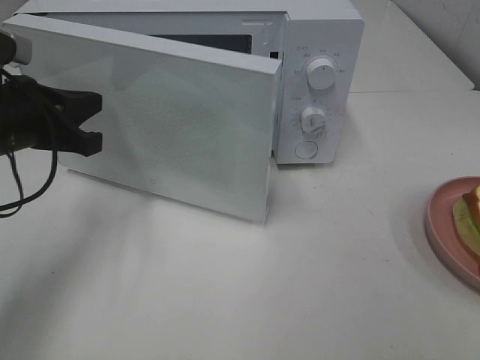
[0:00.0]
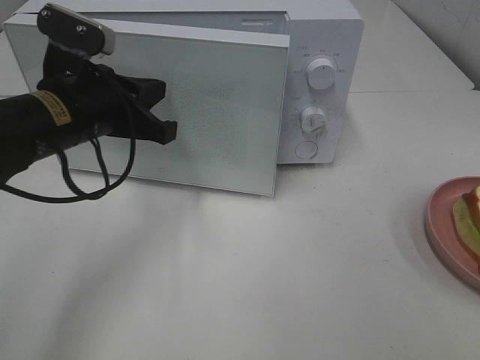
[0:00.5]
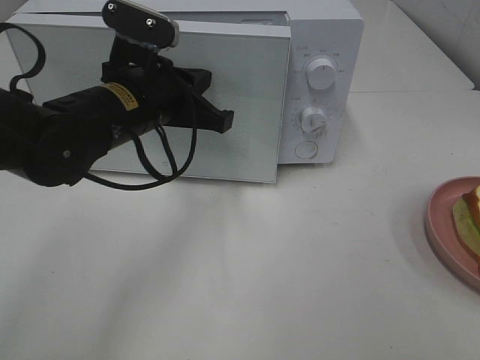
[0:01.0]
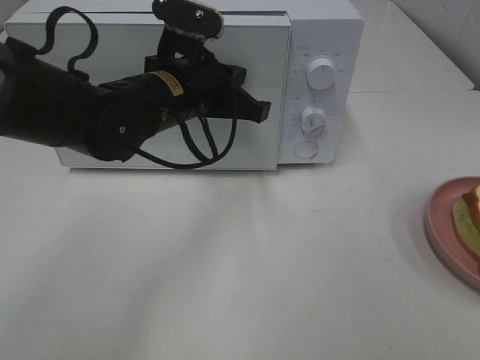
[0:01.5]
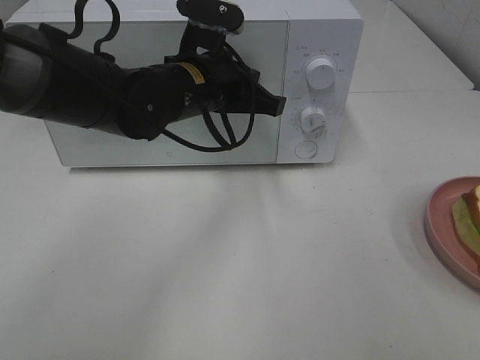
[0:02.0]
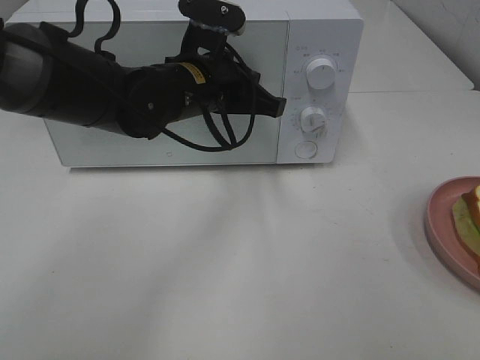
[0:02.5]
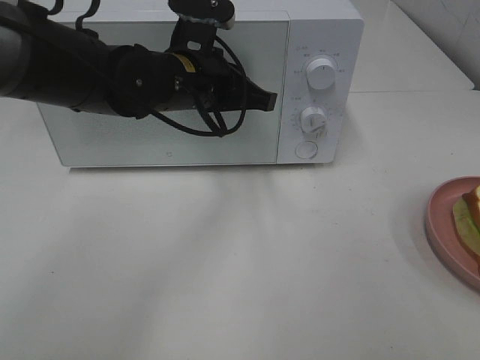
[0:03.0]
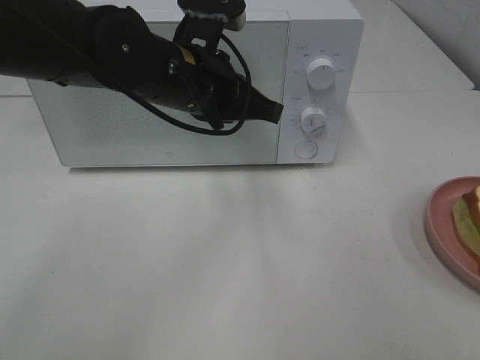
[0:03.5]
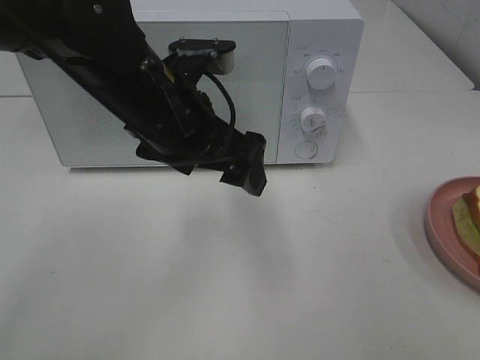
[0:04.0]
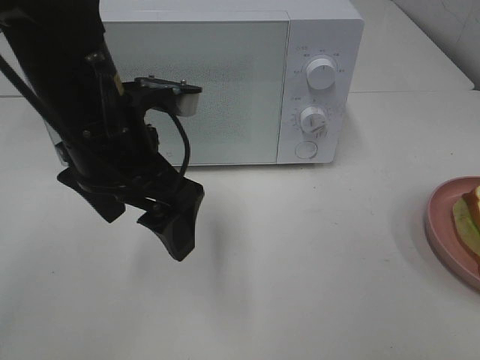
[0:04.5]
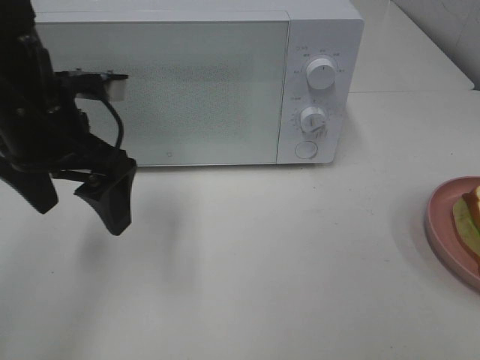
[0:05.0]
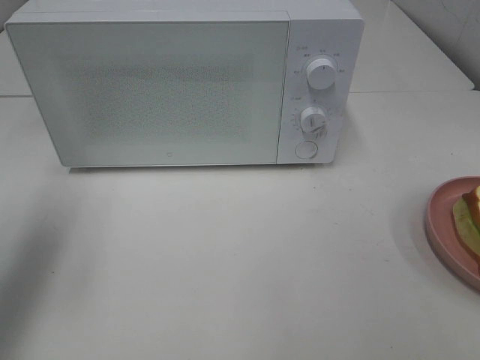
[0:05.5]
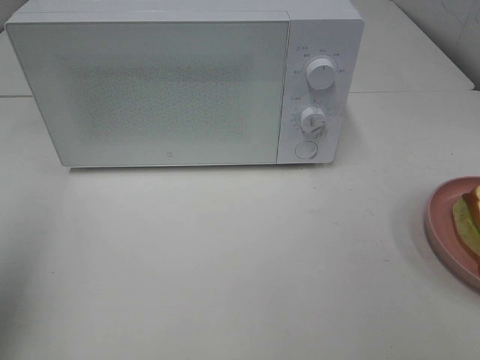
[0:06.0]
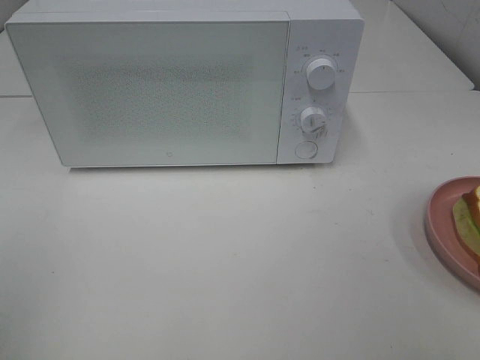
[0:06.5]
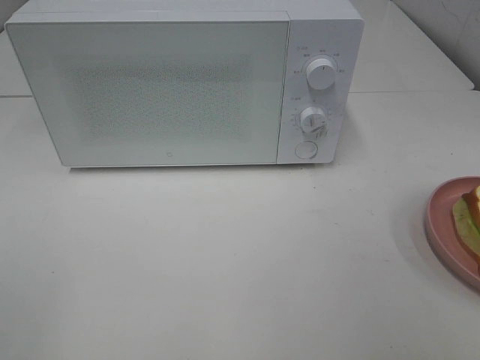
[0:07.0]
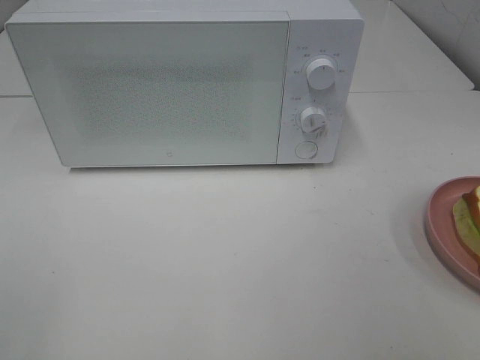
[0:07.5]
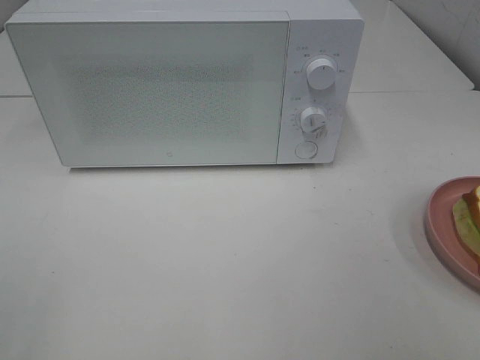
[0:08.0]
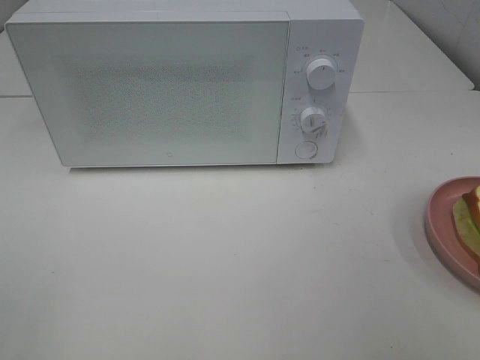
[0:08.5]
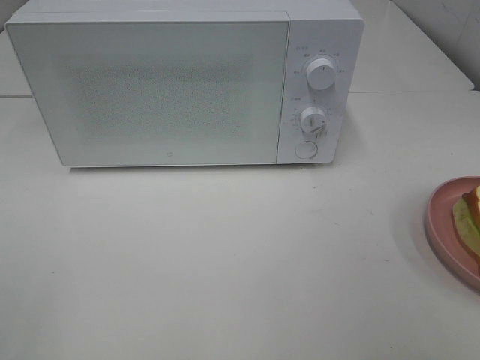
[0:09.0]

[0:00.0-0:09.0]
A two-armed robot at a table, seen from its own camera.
Task of the whole recording: Heat Sandwich.
Step, 0:00.0 to 0:02.5: Left hand: close the microwave door.
0:00.0 to 0:02.0: The left gripper moves to the right, roughly 20 cm.
0:02.0 to 0:04.5: The left gripper heads backward and to the left, covering roughly 10 cm, and opens up.
0:04.5 to 0:07.0: The left gripper is displaced backward and to the left by about 35 cm.

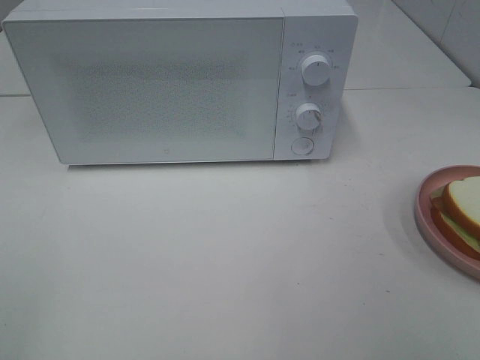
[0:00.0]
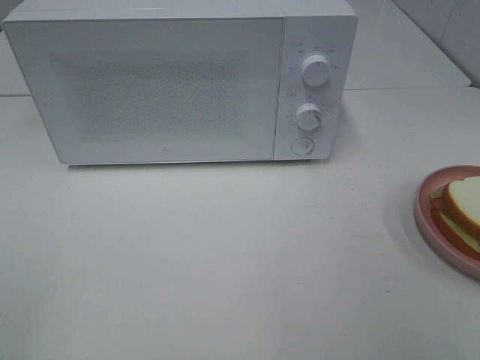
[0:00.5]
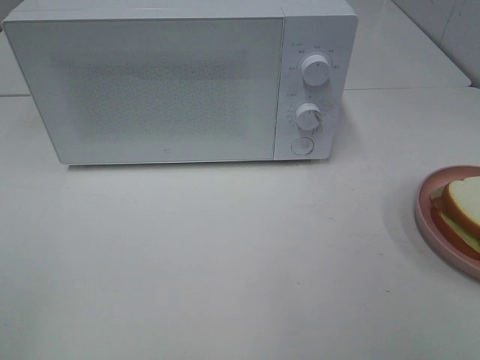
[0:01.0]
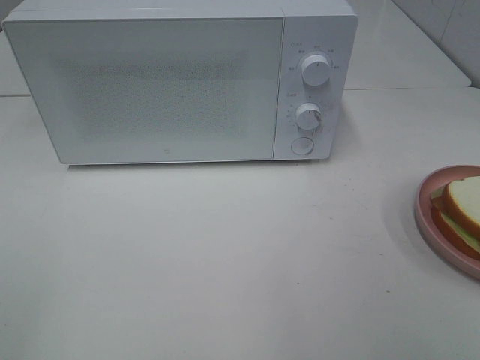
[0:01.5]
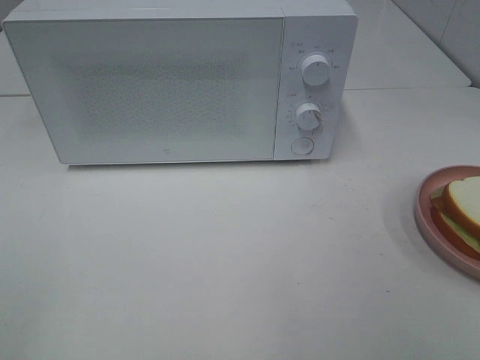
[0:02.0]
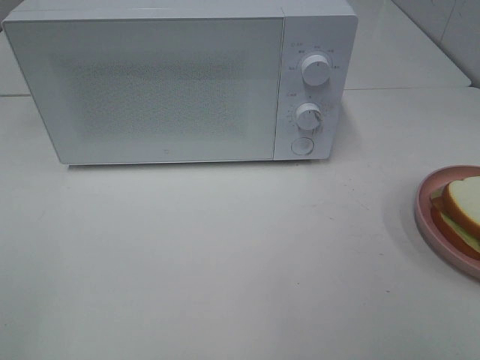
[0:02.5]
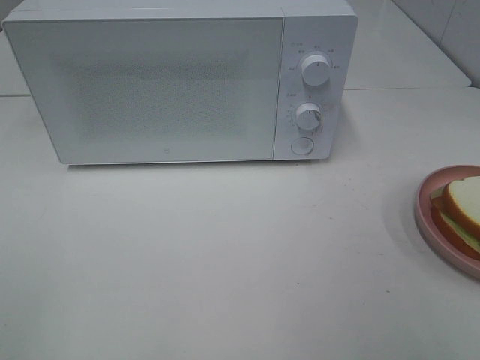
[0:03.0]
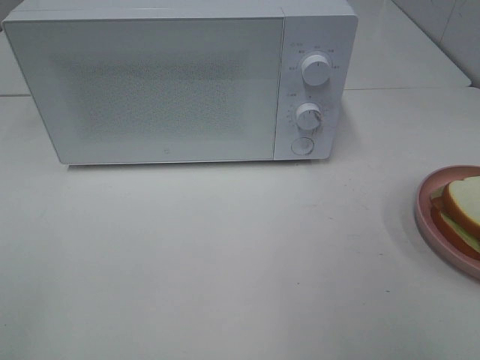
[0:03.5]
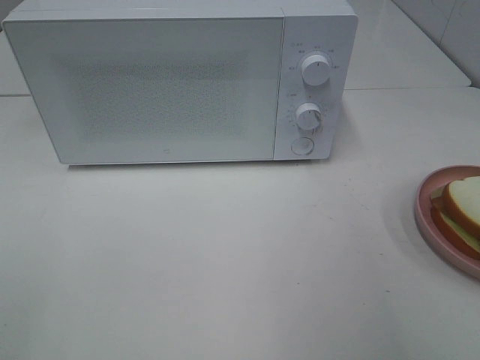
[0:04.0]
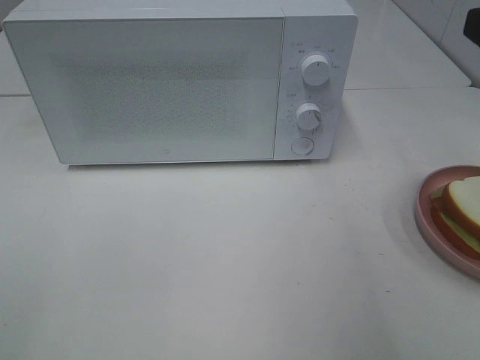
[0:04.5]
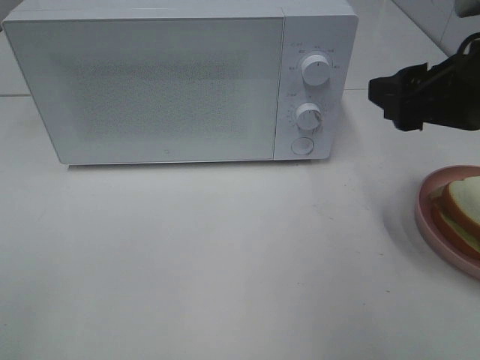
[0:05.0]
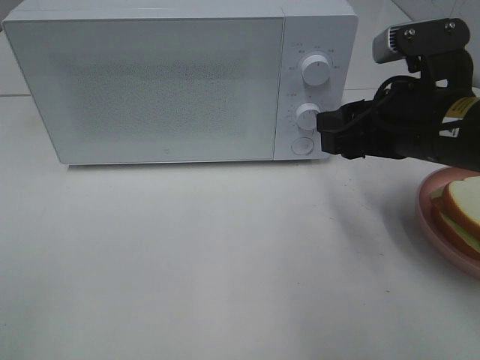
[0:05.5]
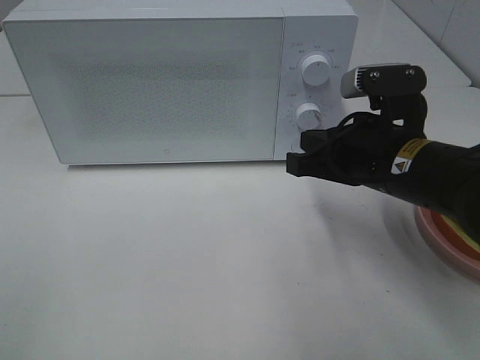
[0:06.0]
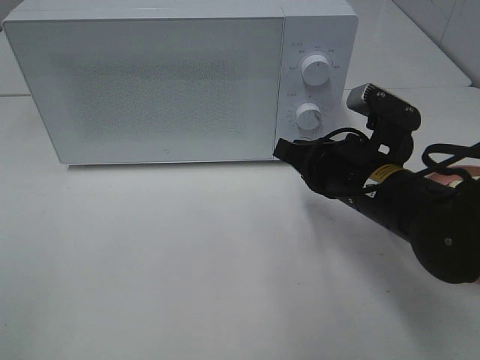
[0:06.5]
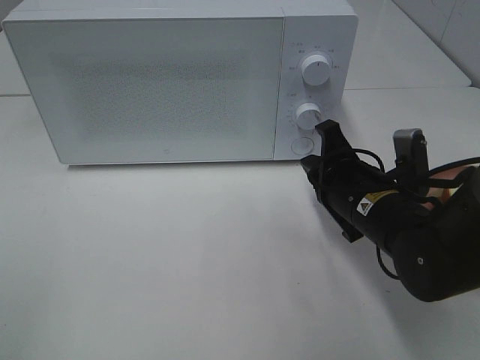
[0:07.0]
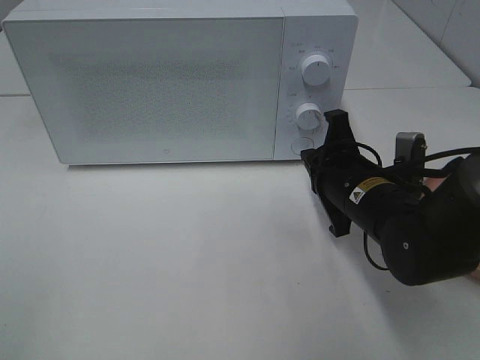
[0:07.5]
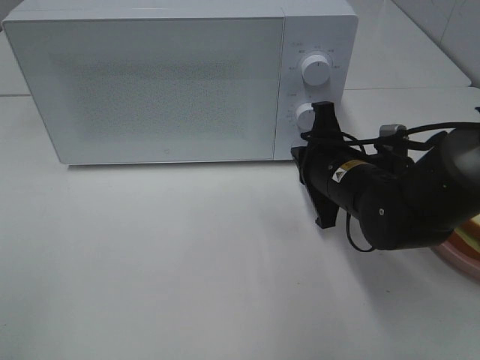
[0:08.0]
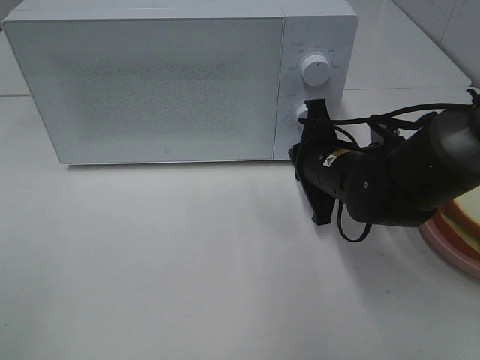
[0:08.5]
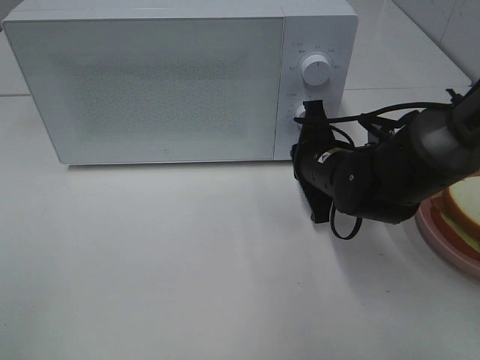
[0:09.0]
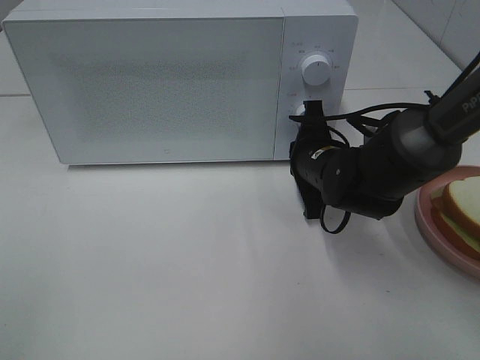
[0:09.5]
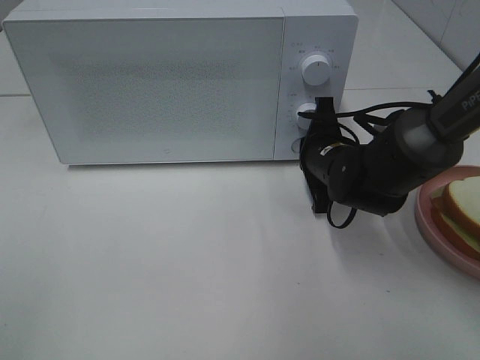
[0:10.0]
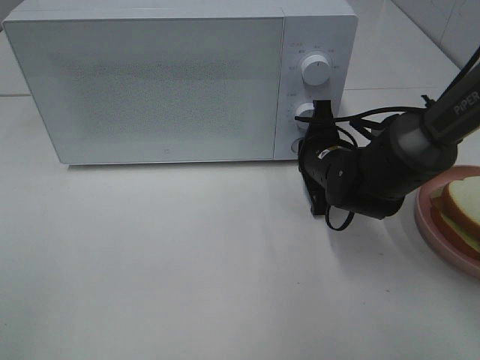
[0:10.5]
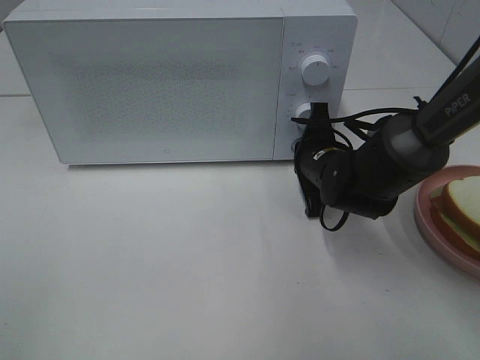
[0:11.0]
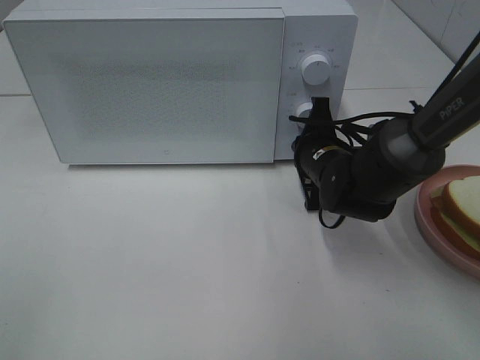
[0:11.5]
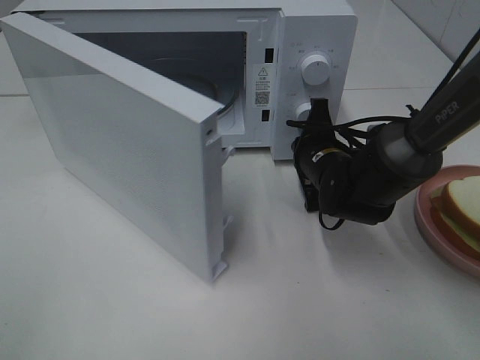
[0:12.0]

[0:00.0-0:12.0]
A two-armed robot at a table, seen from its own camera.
Task of the whole recording: Heat Sandwich.
0:00.0 to 0:02.0: The two grippers keep their place.
0:04.0 to 0:06.0: The right gripper goes roughly 25 cm downward, forward and to the left, and closes.
0:06.0 to 0:08.0: The right gripper shifts approximately 5 cm downward.
0:08.0 to 0:10.0: The right gripper goes approximately 5 cm forward.

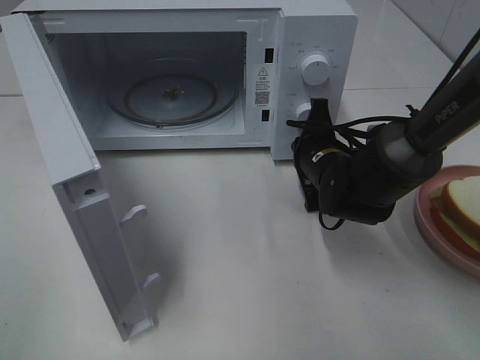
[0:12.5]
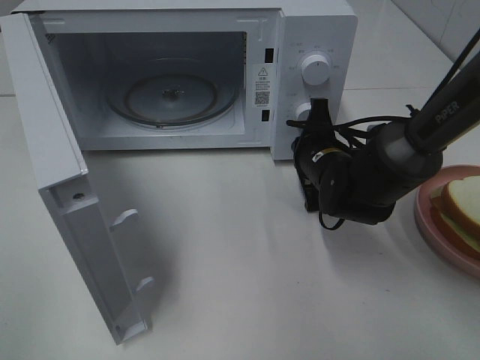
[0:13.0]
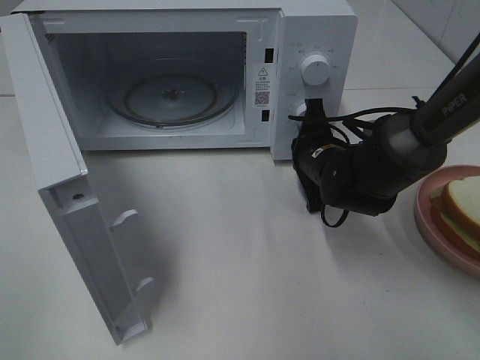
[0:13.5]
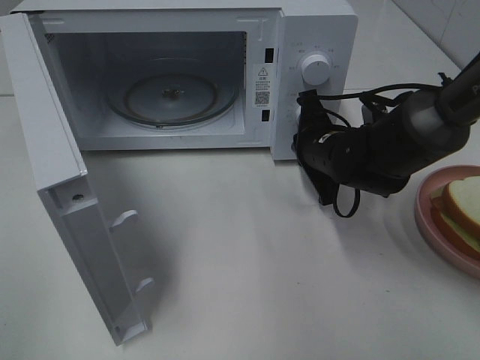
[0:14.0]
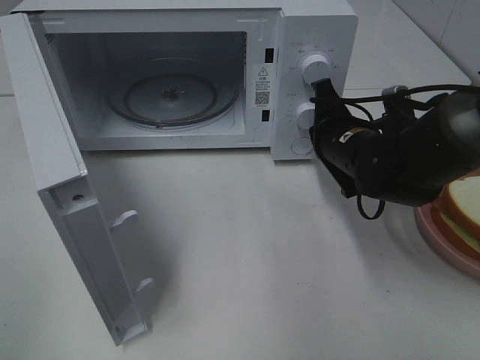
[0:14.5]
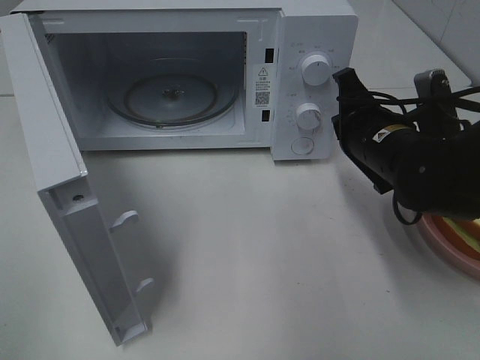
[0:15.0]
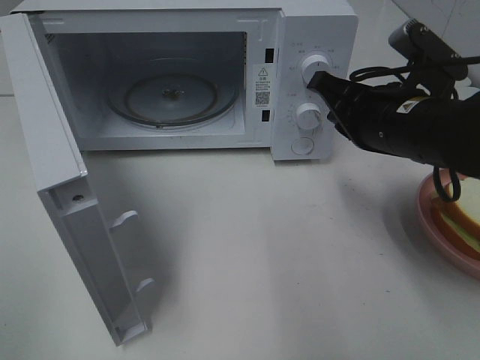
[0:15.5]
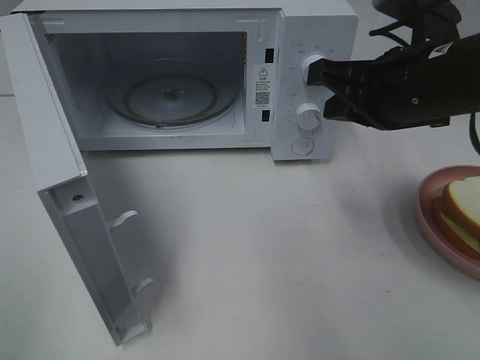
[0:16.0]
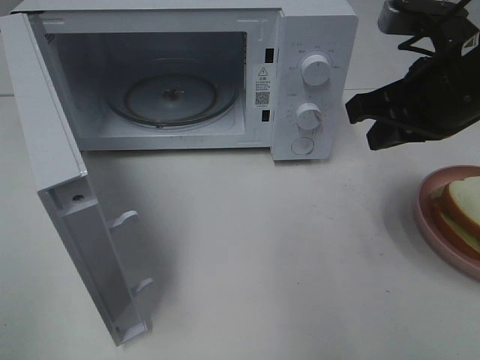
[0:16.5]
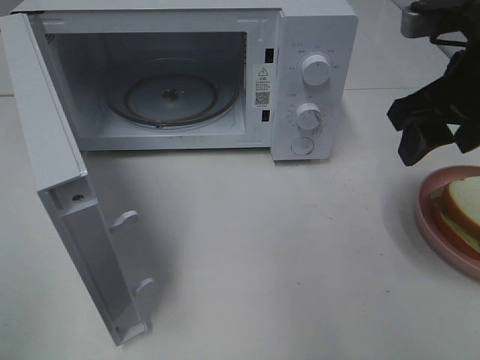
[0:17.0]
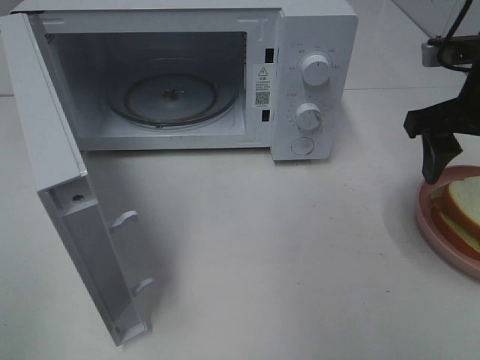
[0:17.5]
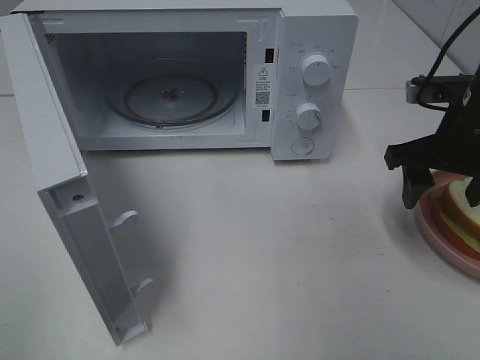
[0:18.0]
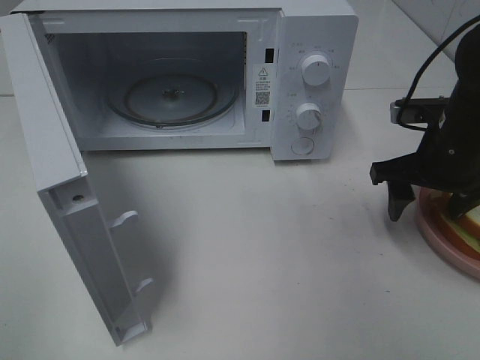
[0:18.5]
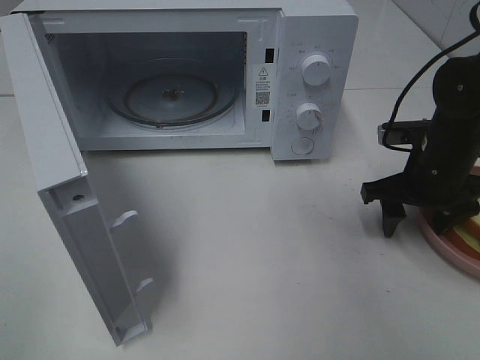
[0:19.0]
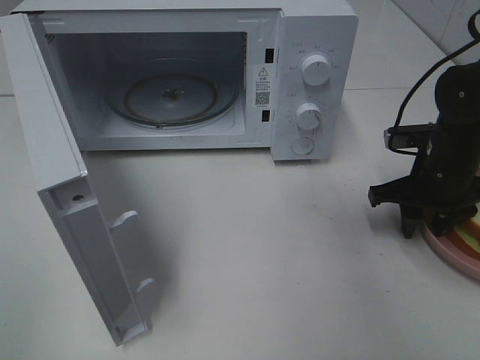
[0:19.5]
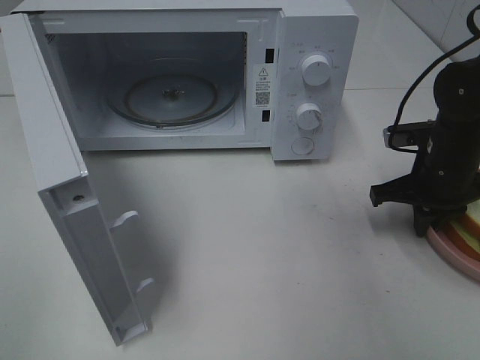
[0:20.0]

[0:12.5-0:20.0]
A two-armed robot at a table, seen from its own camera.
Task of the whole recording: Heat Sandwich.
Step, 0:12.5 to 0:14.5: Right hand: press the switch.
0:12.5 to 0:14.5: The right gripper changes place by roughly 5 cm.
0:14.5 to 0:16.5: The right gripper shifts about 15 cm upward and backward.
0:16.5 to 0:18.0: The right gripper shifts some 5 cm downward, and opens up.
0:18.0 to 0:20.0: The right gripper moves downward, some 10 cm, and closes.
